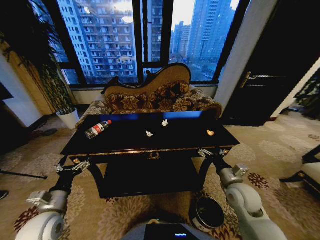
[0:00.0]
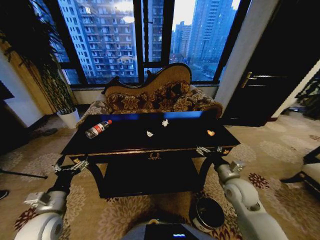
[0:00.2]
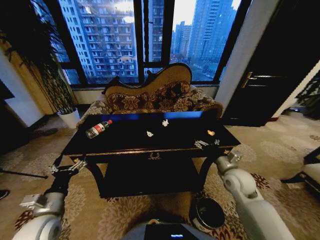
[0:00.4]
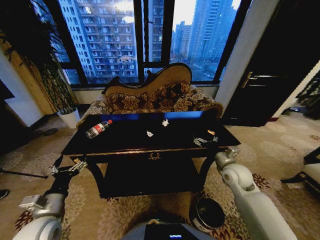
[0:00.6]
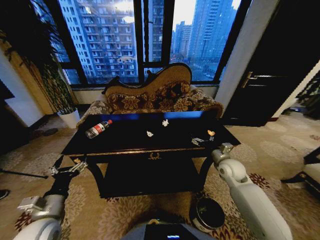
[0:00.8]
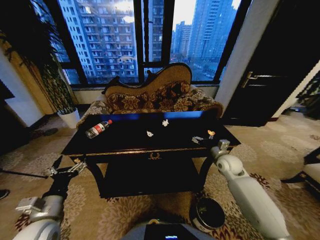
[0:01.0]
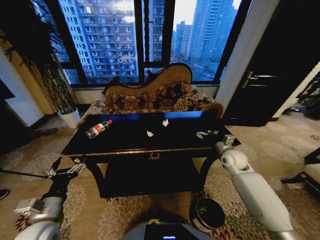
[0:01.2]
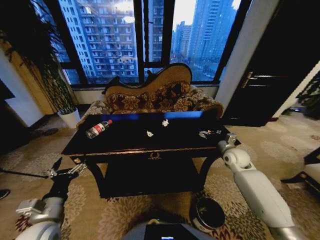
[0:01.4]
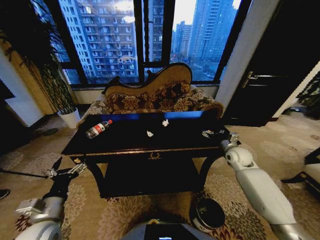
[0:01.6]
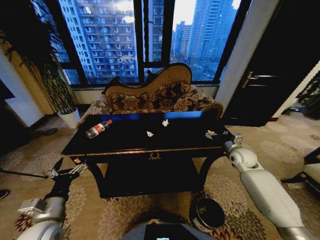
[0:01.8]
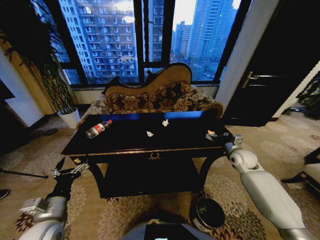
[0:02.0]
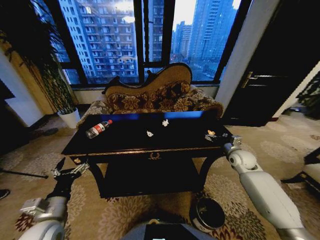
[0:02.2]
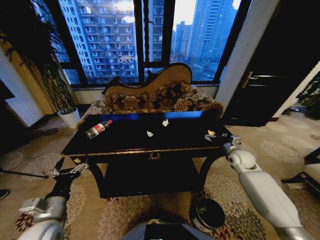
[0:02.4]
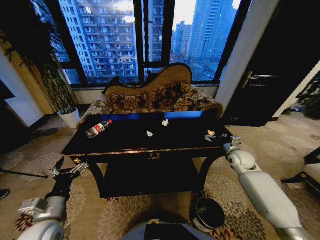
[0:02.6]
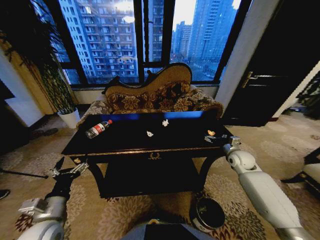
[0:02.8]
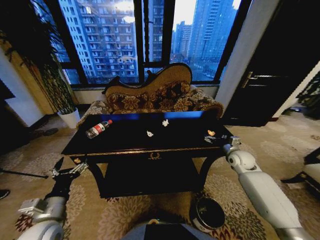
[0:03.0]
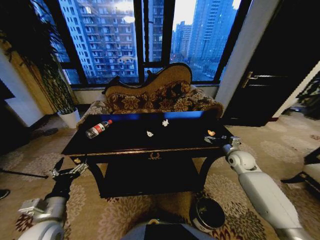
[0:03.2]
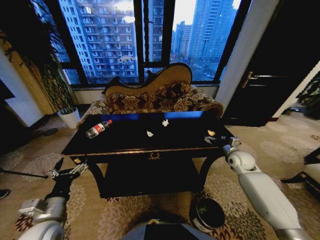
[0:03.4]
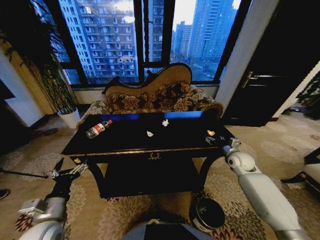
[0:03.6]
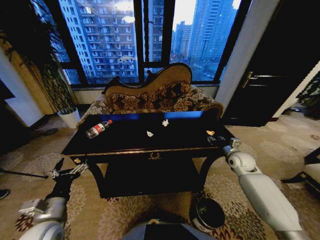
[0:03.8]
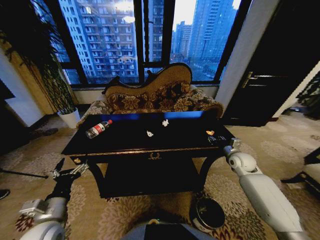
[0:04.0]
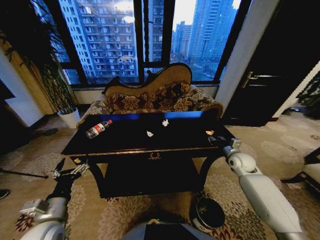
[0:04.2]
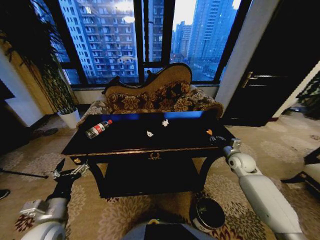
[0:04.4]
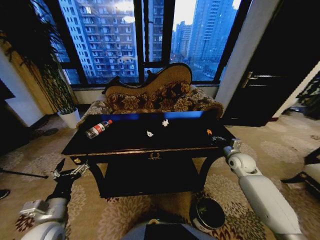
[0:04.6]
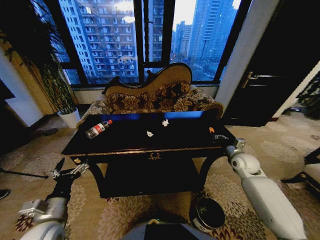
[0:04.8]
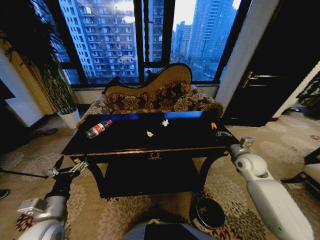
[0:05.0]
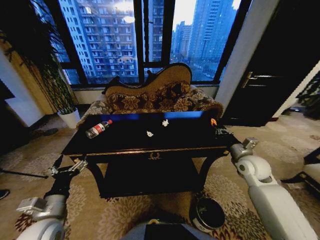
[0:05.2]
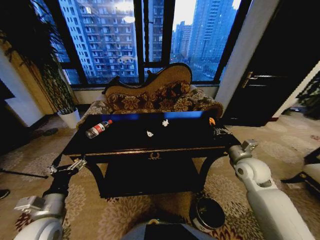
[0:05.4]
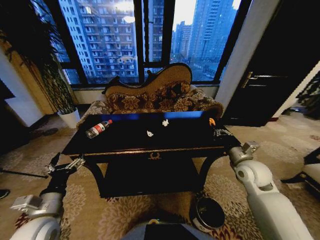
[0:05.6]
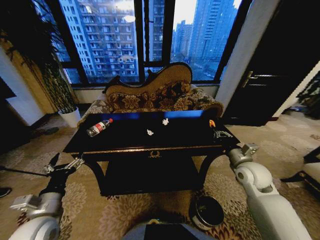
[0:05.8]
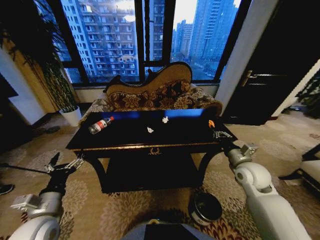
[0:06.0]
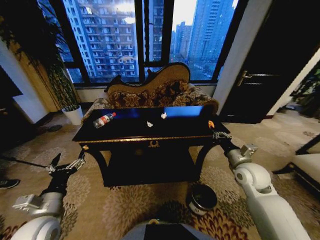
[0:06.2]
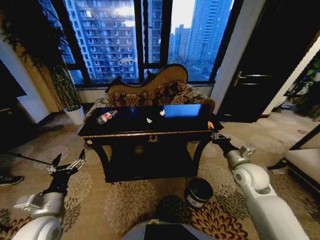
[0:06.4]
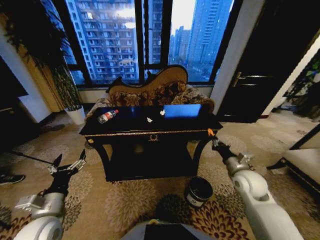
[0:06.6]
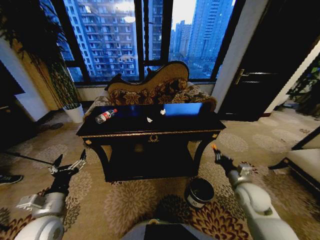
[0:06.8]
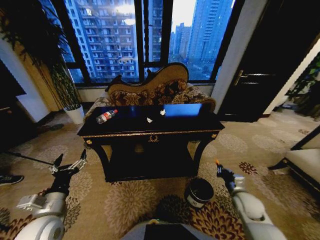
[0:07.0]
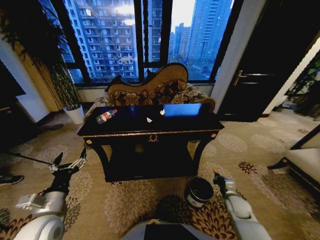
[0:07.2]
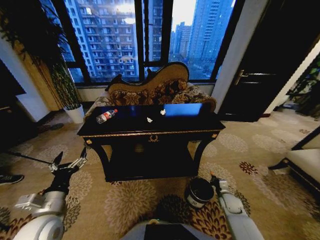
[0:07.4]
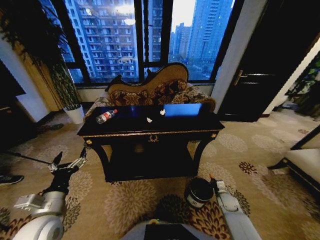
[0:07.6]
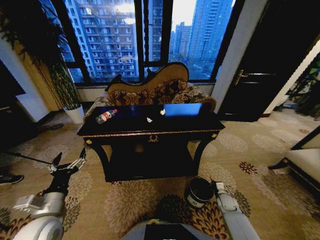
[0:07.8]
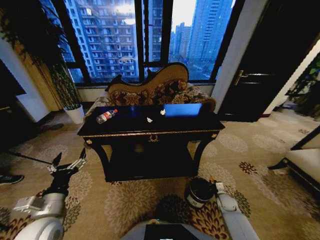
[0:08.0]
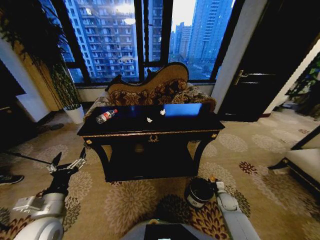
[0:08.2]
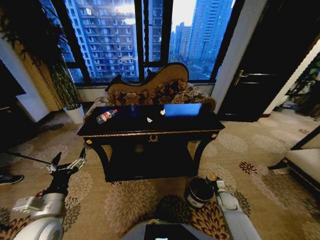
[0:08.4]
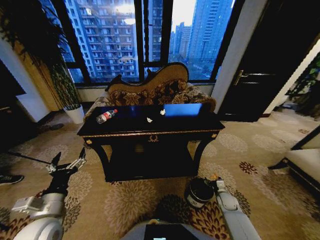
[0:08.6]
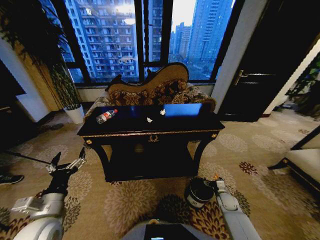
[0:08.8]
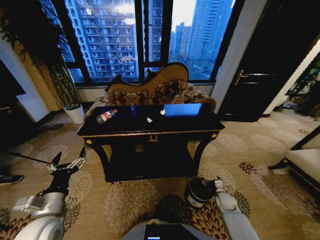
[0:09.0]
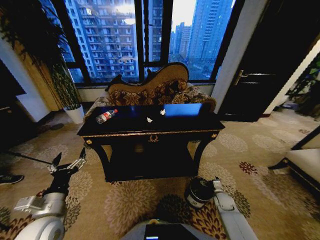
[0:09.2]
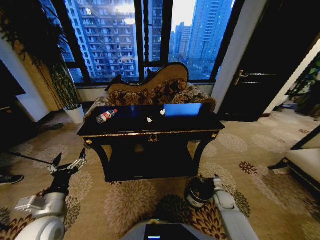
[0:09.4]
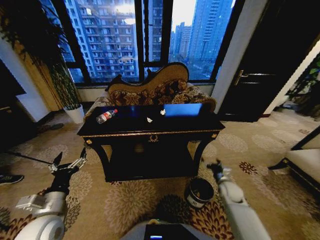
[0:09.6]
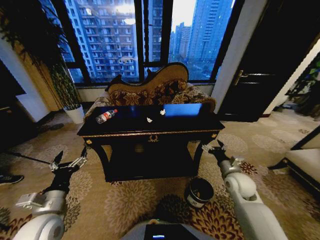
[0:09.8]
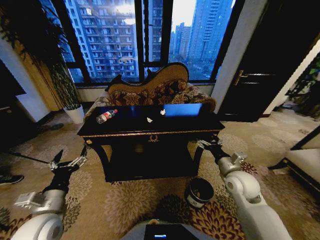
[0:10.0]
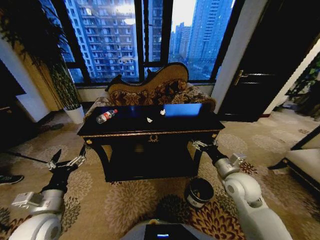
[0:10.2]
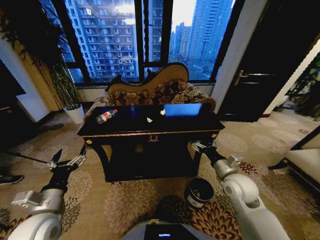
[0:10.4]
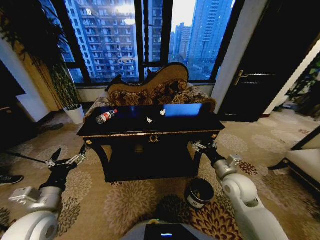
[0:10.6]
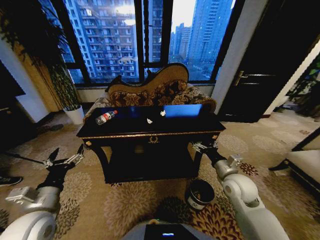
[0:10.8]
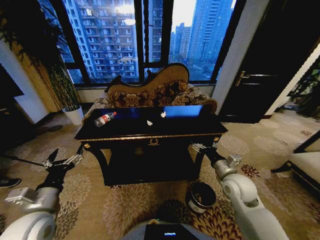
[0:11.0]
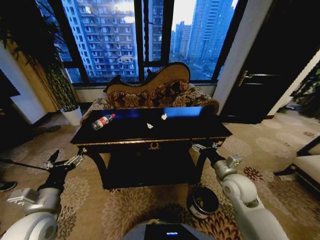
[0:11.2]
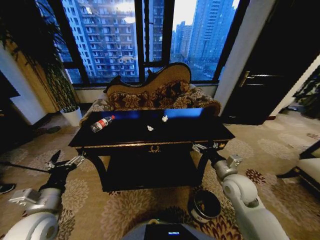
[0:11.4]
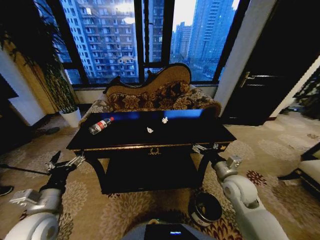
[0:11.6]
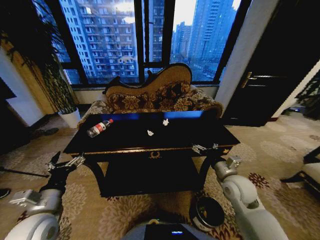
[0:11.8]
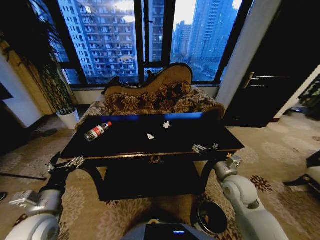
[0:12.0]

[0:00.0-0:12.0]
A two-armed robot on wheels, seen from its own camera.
Task of the whole recording: Move to the front of the table and place the trash on the table into the trash bin.
0:00.0 to 0:01.6: The right gripper goes roughly 20 cm forward and to the right.
0:01.6 to 0:03.0: The grippers move only a little.
0:03.0 to 0:04.4: The right gripper closes.
0:04.4 to 0:06.0: The right gripper travels backward, upward and to the left by some 15 cm.
0:06.0 to 0:07.6: The right gripper travels downward by about 30 cm.
0:07.6 to 0:09.0: The right gripper opens.
0:09.0 to 0:10.4: The right gripper travels upward by about 25 cm.

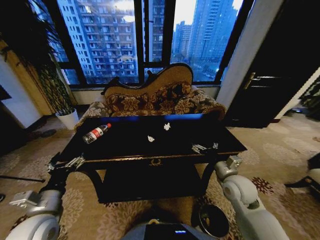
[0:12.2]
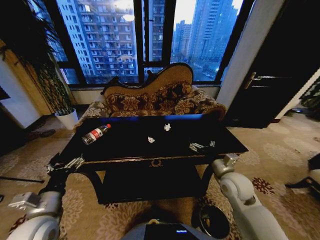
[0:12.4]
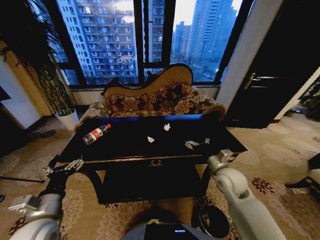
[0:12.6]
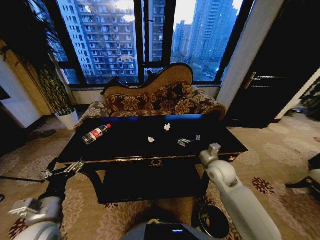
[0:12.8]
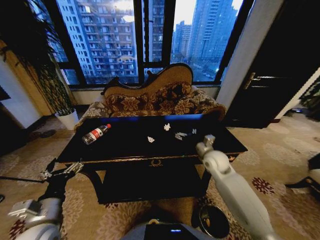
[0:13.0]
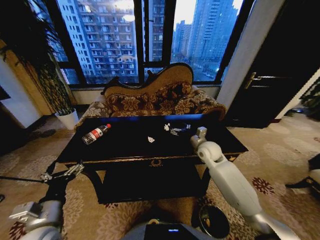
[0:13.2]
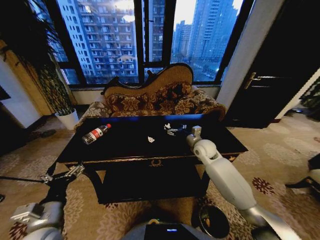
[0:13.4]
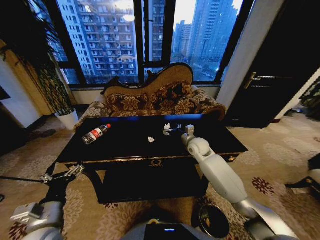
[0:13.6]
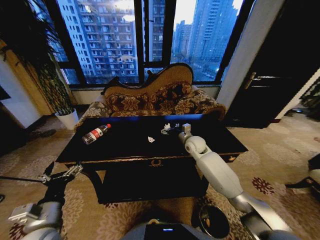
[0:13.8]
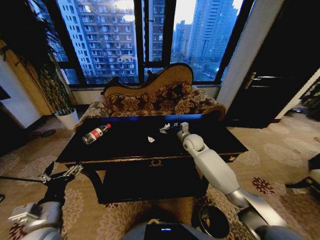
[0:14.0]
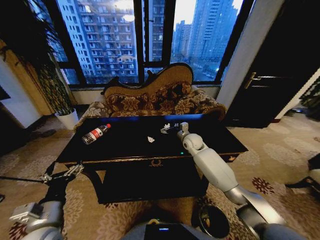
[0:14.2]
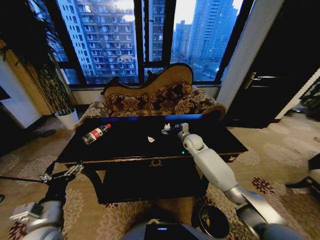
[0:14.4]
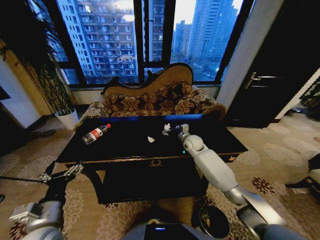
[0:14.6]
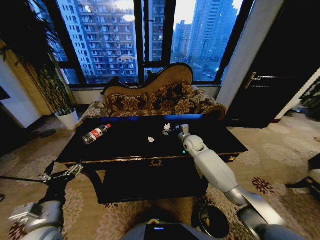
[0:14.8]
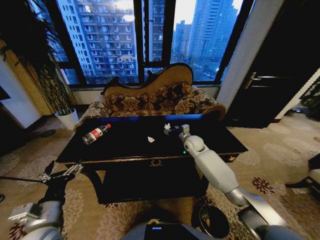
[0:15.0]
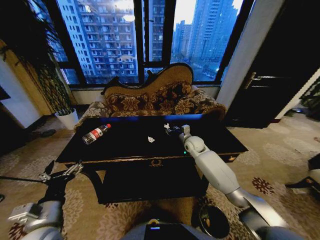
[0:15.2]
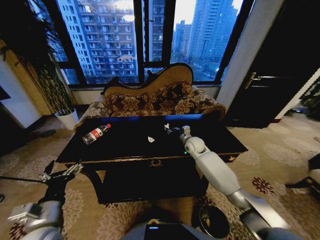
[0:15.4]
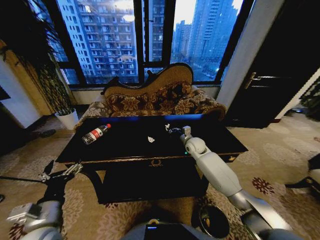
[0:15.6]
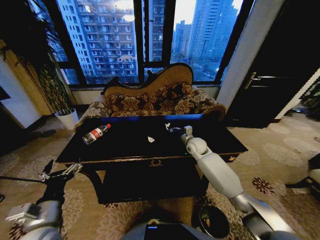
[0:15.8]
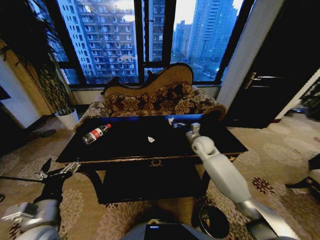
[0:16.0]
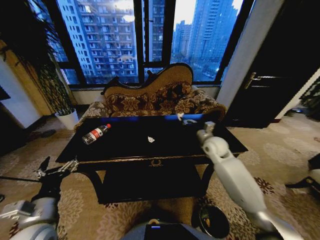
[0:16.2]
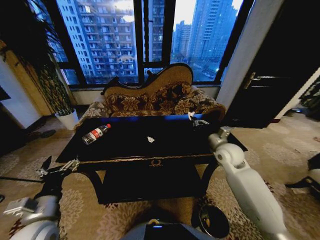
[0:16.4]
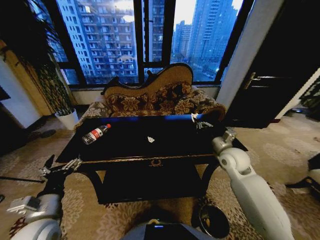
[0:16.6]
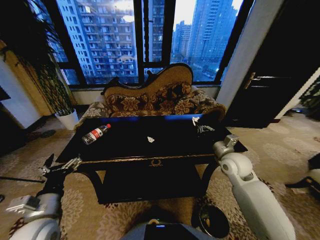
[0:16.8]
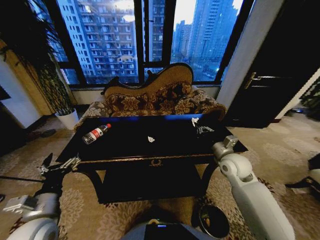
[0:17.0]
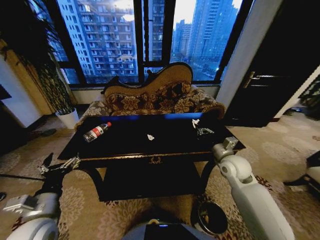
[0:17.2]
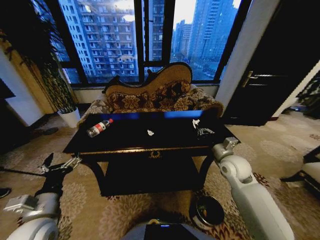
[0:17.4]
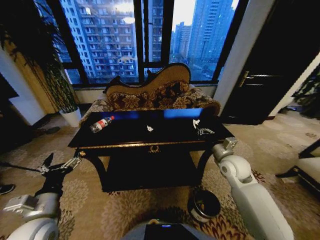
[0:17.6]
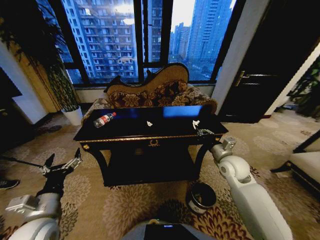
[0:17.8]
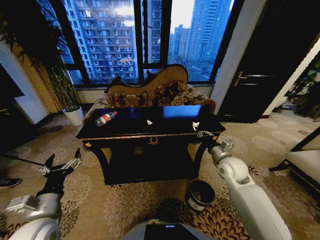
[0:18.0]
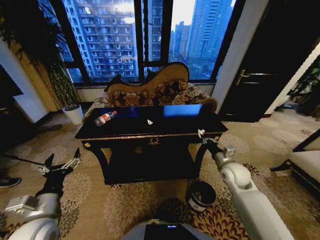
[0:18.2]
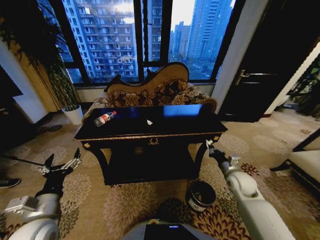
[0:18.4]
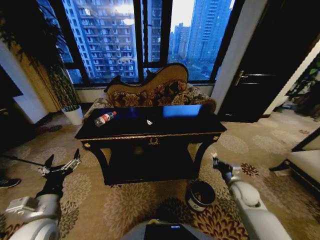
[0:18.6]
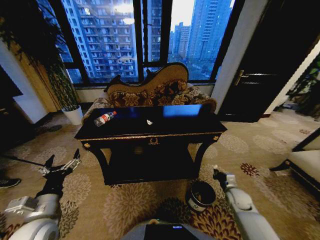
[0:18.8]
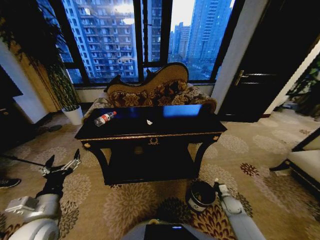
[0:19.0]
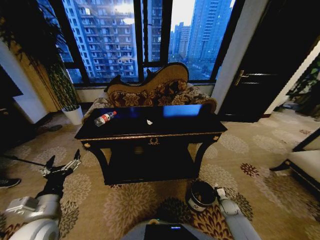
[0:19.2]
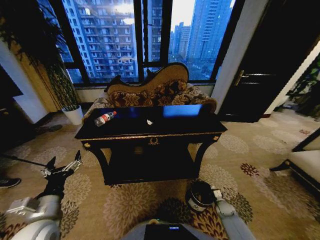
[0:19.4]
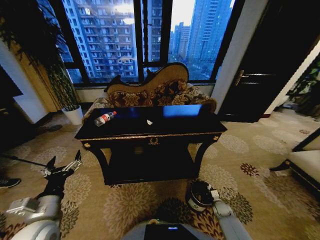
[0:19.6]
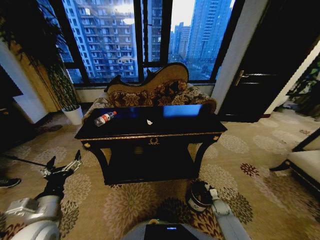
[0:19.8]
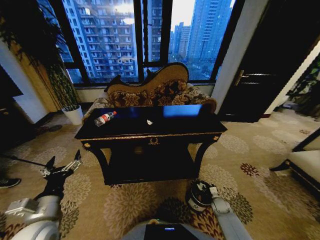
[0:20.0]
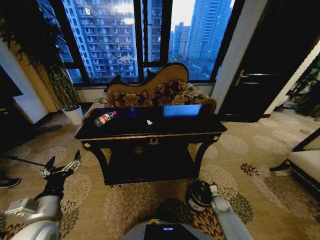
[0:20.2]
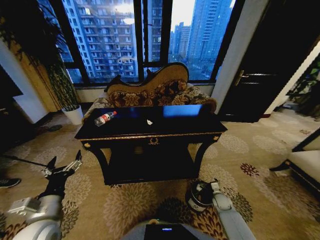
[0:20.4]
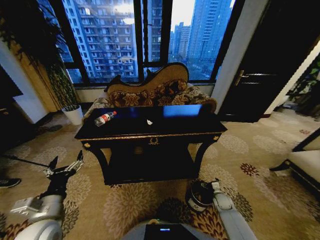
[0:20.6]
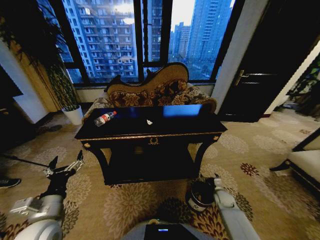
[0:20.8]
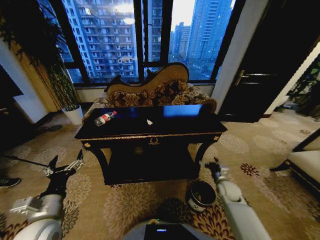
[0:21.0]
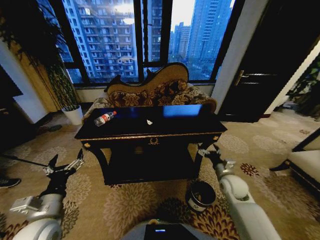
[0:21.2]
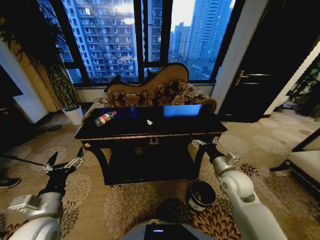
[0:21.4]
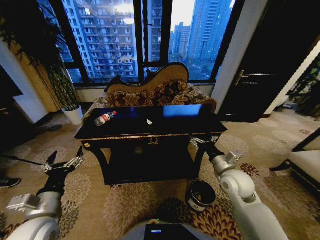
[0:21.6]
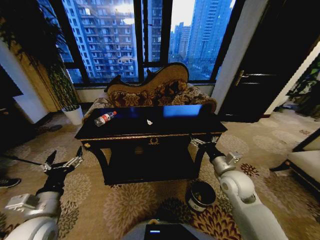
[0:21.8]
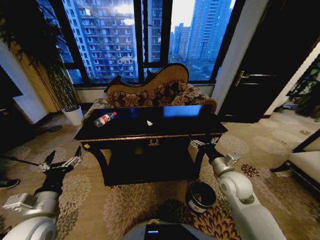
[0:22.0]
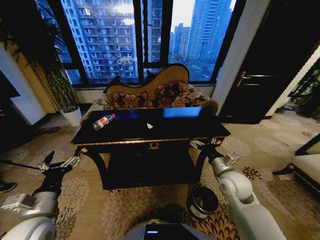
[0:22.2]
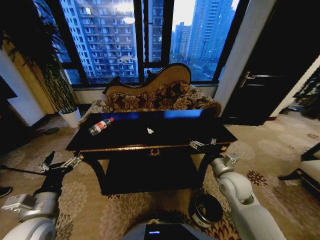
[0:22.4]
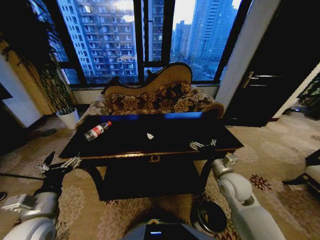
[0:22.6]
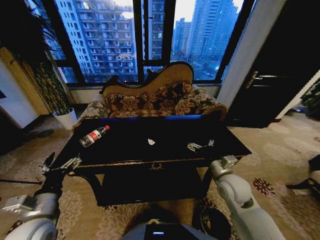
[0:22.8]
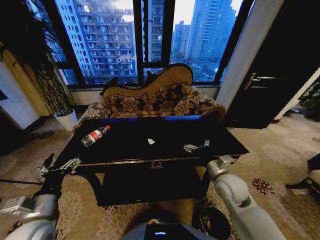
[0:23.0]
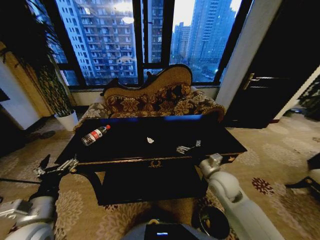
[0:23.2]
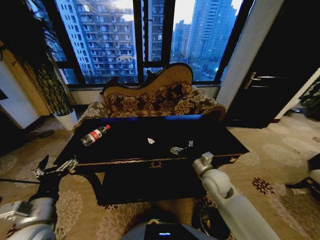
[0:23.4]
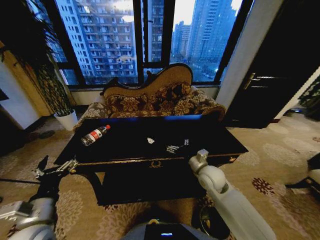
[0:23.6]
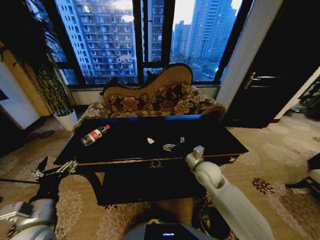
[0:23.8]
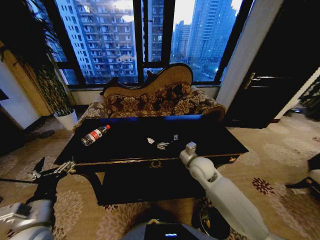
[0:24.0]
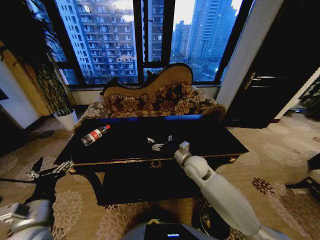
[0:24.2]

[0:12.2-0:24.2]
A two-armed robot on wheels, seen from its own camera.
Task of the whole recording: Move to the front of the table and place the trash on the table into the trash bin.
0:12.2 to 0:13.8: The right gripper goes about 25 cm forward and to the left.
0:13.8 to 0:15.2: The right gripper closes up.
0:15.2 to 0:16.6: The right gripper heads backward, to the right and upward, covering some 20 cm, and closes its fingers.
0:16.6 to 0:18.2: The right gripper goes approximately 5 cm downward.
0:18.2 to 0:19.8: The right gripper is displaced downward by roughly 30 cm.
0:19.8 to 0:21.2: The right gripper shifts roughly 25 cm upward, and opens its fingers.
0:21.2 to 0:22.6: The right gripper shifts roughly 5 cm upward.
0:22.6 to 0:24.2: The right gripper heads to the left and forward, covering roughly 15 cm.
